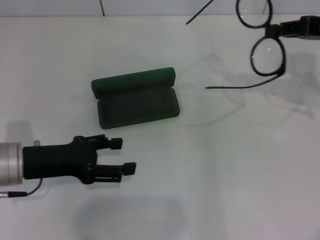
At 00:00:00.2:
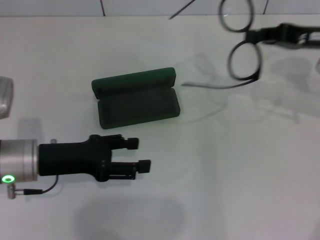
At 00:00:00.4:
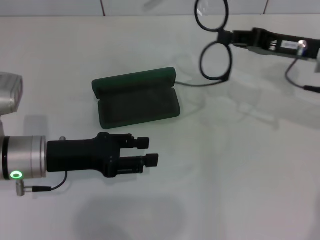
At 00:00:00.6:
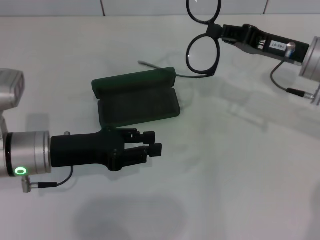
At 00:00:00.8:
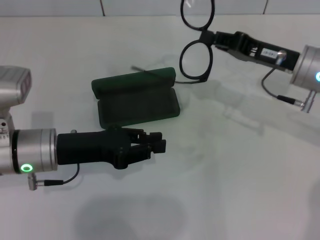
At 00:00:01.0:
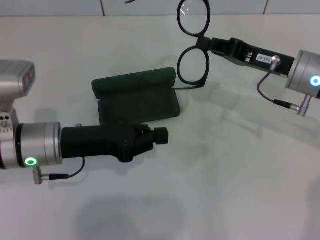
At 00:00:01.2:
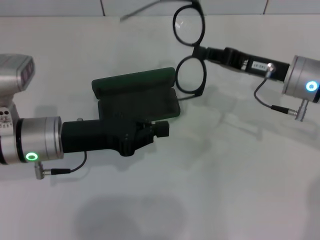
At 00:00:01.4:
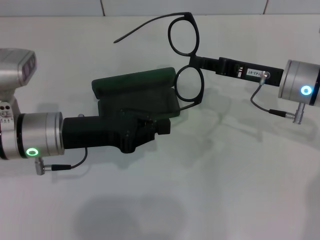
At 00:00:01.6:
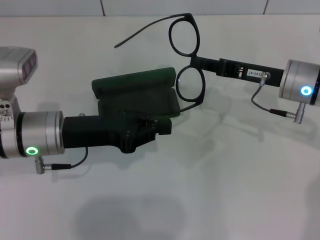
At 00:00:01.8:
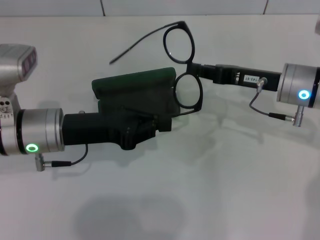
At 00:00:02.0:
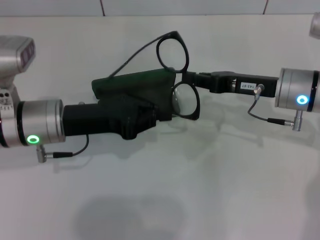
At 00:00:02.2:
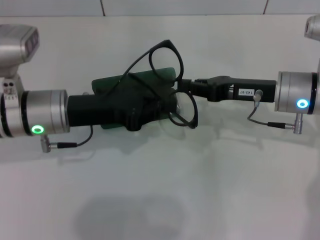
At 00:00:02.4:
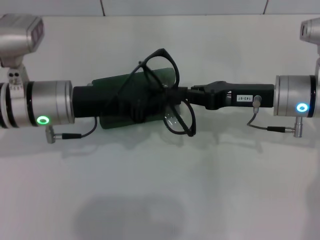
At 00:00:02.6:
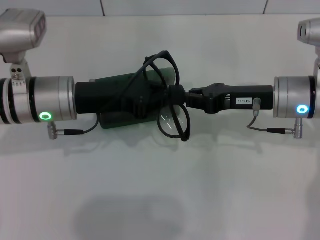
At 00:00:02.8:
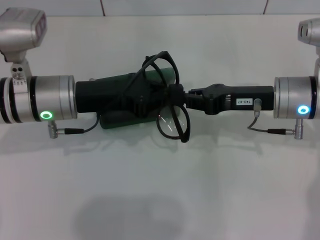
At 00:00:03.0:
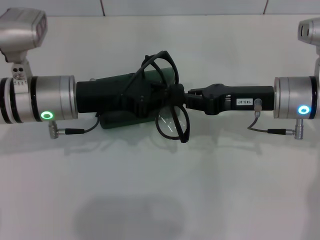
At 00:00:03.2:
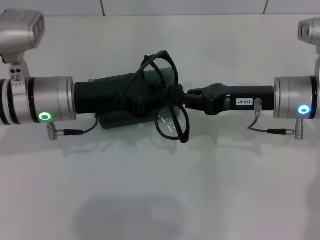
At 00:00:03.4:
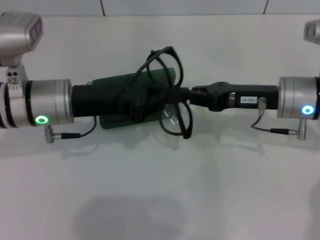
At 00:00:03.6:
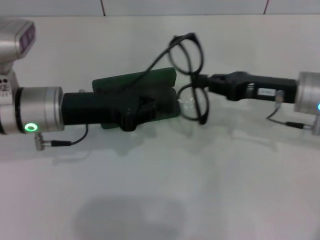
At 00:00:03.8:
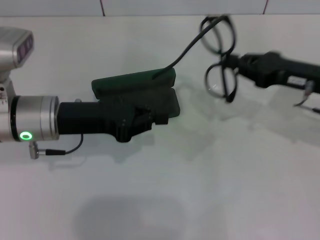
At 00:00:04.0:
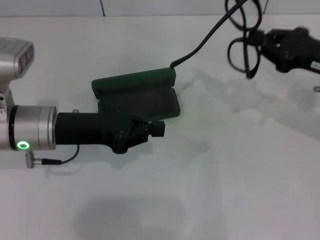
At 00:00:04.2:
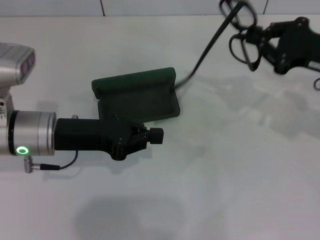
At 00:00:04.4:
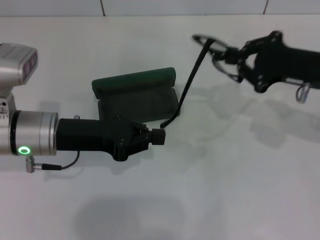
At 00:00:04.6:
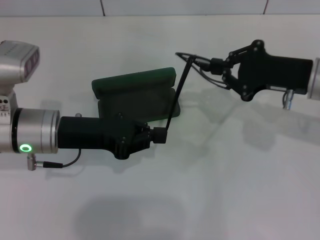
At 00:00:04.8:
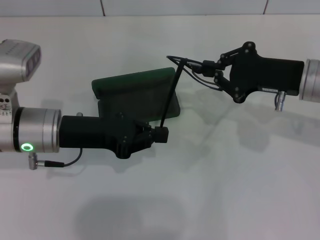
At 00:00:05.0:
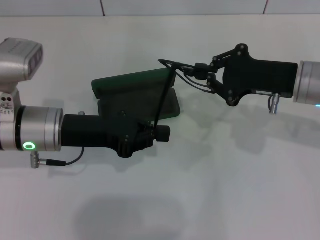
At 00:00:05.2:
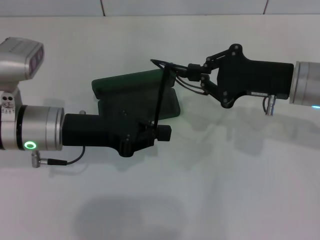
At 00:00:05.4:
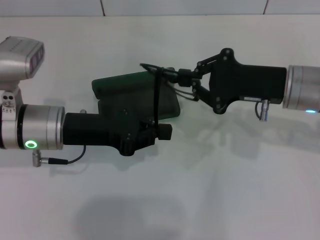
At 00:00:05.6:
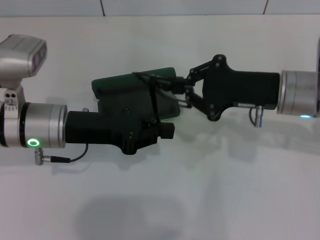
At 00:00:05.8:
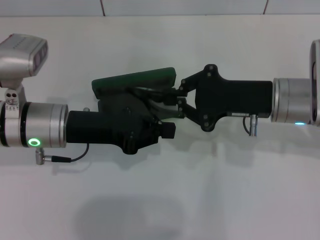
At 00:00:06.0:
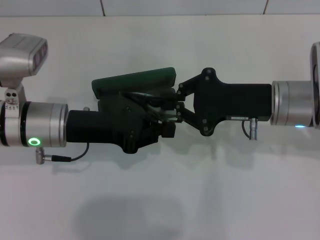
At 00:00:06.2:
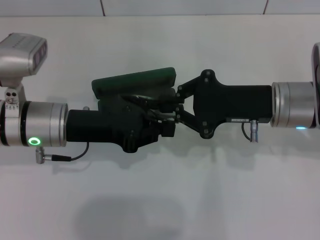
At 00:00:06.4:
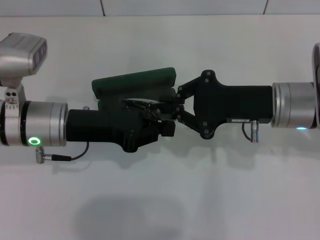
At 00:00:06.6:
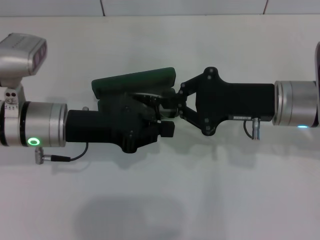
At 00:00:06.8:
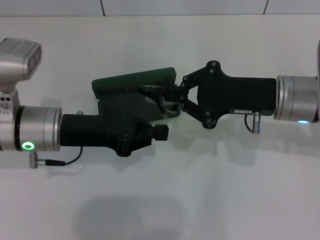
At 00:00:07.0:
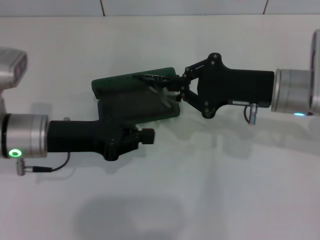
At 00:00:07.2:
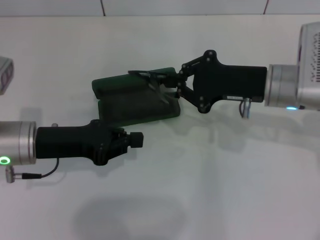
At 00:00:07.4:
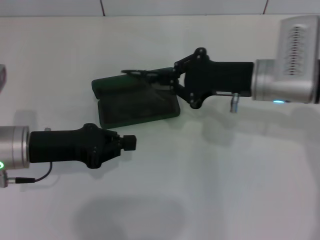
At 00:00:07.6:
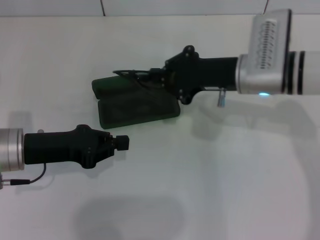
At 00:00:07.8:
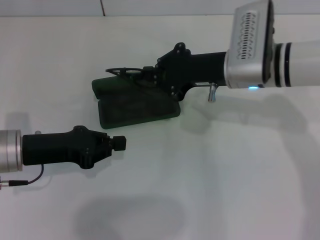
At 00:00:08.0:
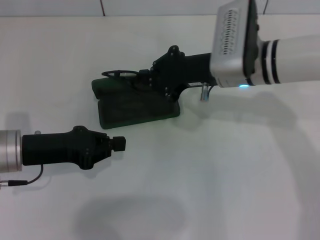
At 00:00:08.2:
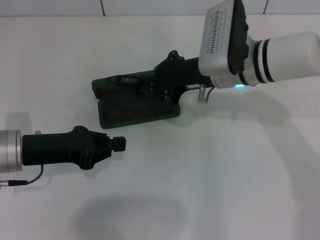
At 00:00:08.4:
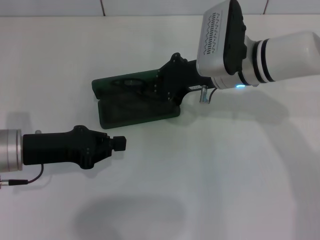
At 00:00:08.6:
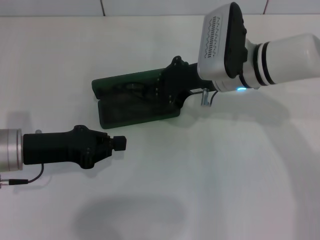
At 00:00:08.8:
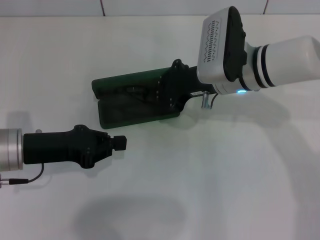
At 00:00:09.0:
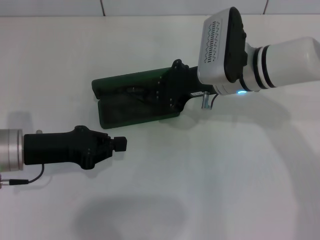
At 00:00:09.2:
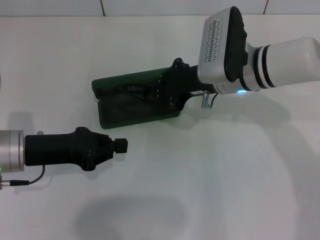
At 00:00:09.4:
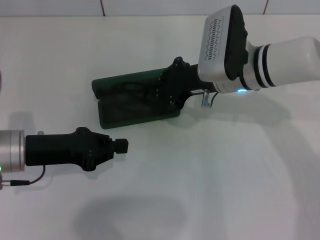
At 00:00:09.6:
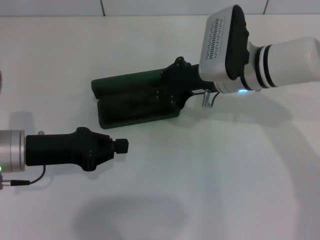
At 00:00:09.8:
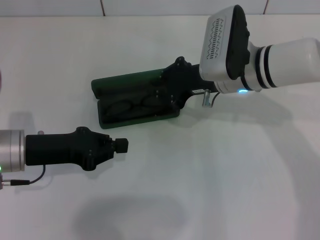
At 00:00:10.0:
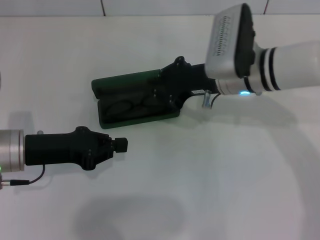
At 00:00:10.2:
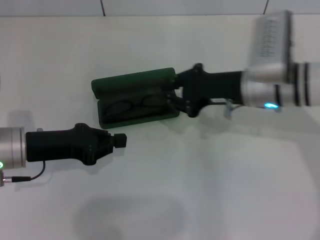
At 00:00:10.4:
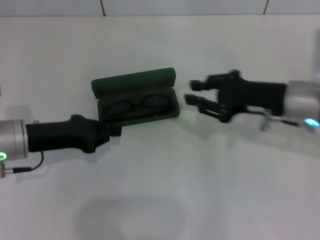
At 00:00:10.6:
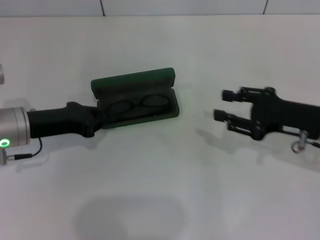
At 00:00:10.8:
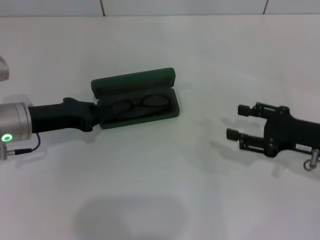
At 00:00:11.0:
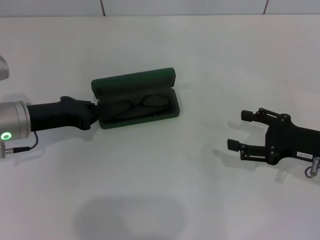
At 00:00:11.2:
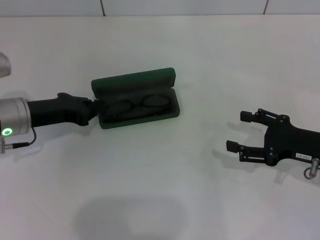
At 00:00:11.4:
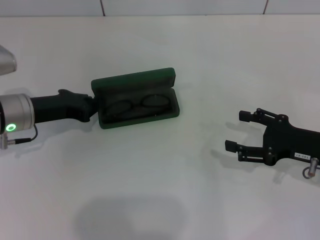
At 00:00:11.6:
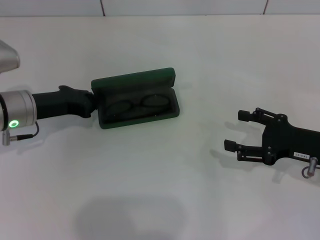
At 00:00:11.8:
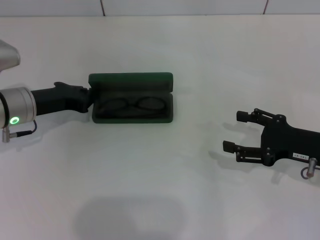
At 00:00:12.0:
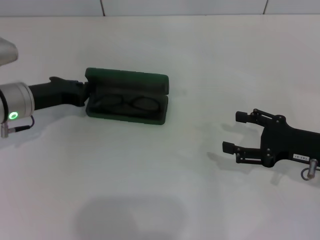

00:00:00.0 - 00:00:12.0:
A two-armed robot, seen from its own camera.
Step, 00:00:00.0 - 00:00:06.4: Fold the frame with your left hand.
Step, 00:00:06.6 - 00:00:10.0: Put the glasses into the case with your right hand.
00:00:00.0 - 00:00:01.6: The left gripper goes about 5 cm to the right, and closes; the right gripper shifts roughly 15 cm downward and to the left.
00:00:03.0 - 00:00:04.4: The right gripper is displaced to the right by some 5 cm.
00:00:04.4 - 00:00:06.0: The right gripper shifts about 10 cm to the left.
00:00:06.0 - 00:00:07.6: The left gripper moves to the left, about 5 cm. Meanwhile the right gripper changes place by approximately 5 cm.
00:00:07.6 - 00:00:09.0: There are only small adjustments of the grippers.
00:00:09.0 - 00:00:10.4: The right gripper travels to the right by roughly 10 cm.
00:00:10.4 - 00:00:12.0: The right gripper is displaced to the right, backward and downward by about 10 cm, and opens up. Meanwhile the left gripper goes roughly 5 cm forward.

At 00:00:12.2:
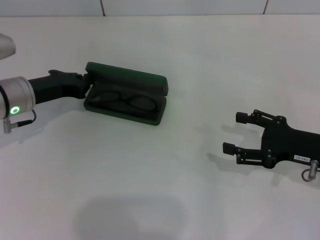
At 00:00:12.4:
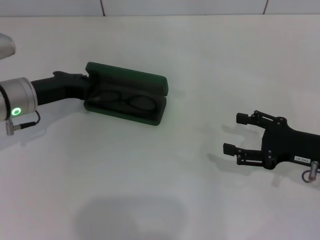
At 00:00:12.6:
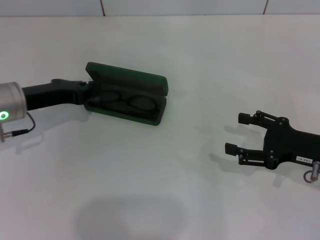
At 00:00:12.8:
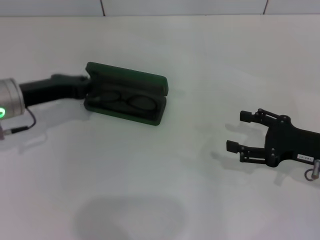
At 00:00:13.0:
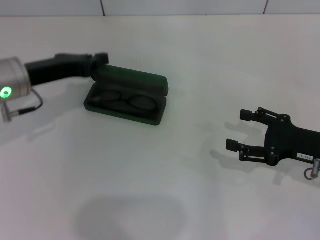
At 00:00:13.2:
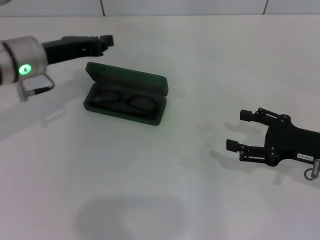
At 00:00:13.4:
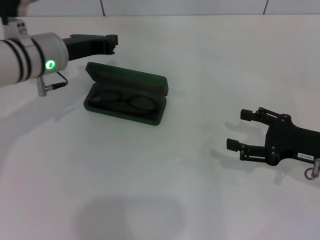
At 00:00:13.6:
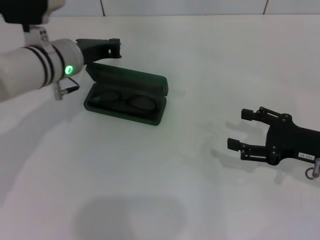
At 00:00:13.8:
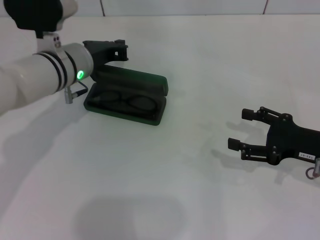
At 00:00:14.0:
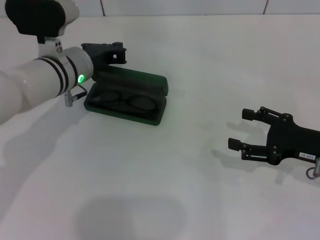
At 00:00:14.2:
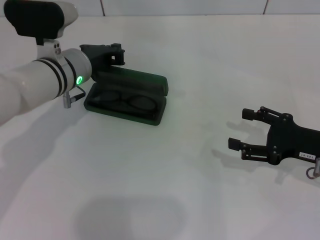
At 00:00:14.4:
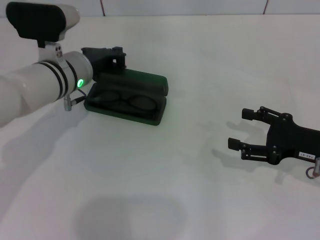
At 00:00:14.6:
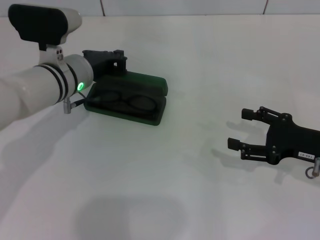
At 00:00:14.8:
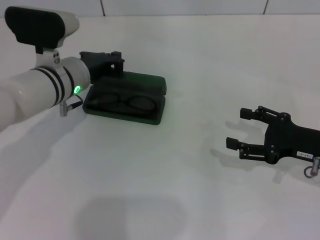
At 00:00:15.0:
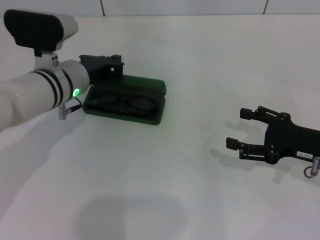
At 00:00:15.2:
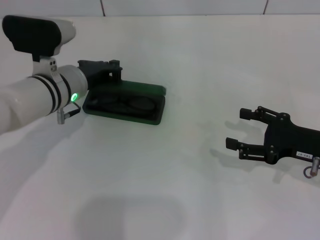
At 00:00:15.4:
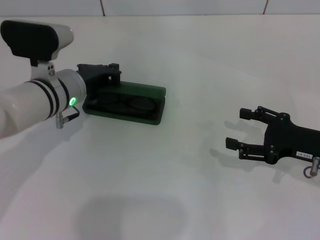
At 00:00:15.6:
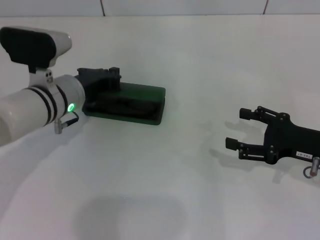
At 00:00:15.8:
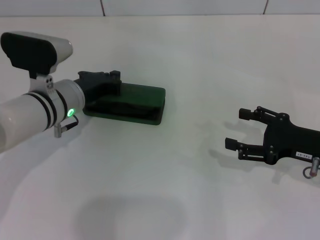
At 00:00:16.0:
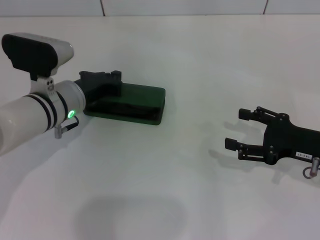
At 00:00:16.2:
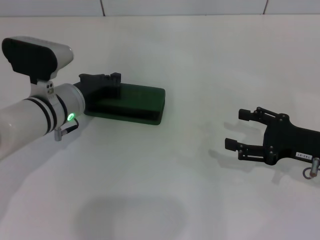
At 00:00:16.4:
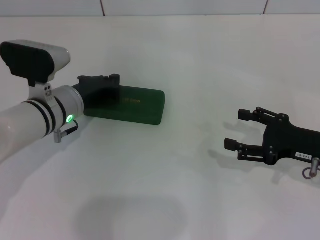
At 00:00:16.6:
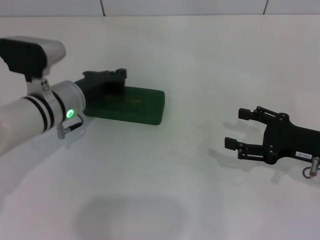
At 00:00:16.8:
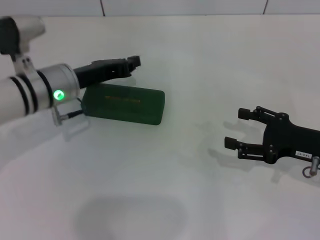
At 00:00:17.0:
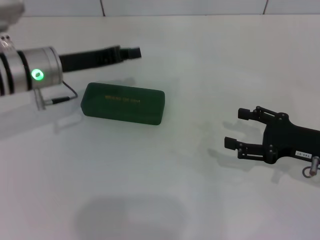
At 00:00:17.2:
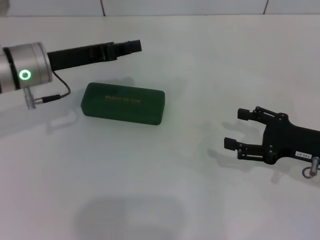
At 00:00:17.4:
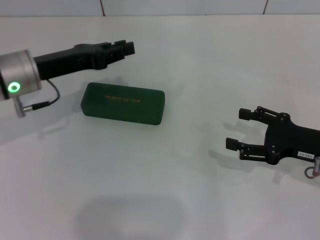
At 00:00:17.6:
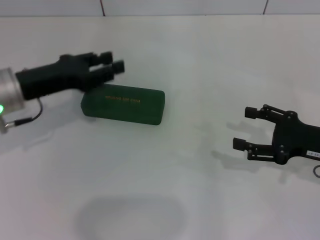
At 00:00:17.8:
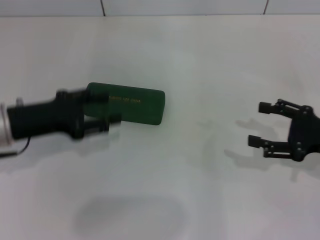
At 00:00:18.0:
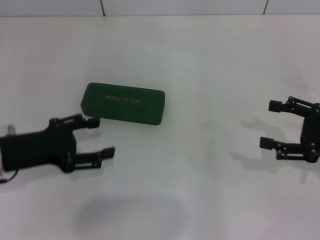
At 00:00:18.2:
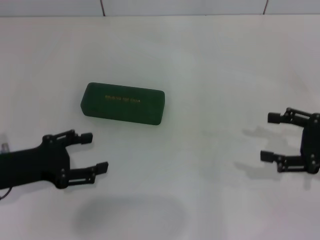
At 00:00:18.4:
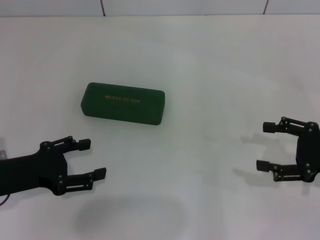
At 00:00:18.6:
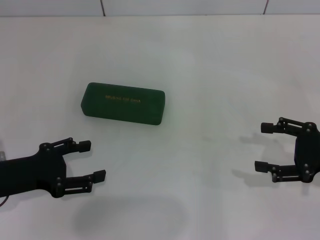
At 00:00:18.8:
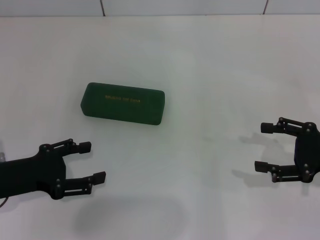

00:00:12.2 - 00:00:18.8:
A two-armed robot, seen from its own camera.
Step, 00:00:12.2 - 00:00:16.4: Close the glasses case with your left hand.
00:00:12.2 - 00:00:13.8: The left gripper moves to the right, approximately 10 cm.
00:00:13.8 - 00:00:15.4: The grippers make only small movements.
00:00:15.4 - 00:00:17.2: The left gripper goes some 5 cm to the left.
00:00:17.2 - 00:00:18.8: The left gripper goes some 15 cm backward and to the left, and opens up.
